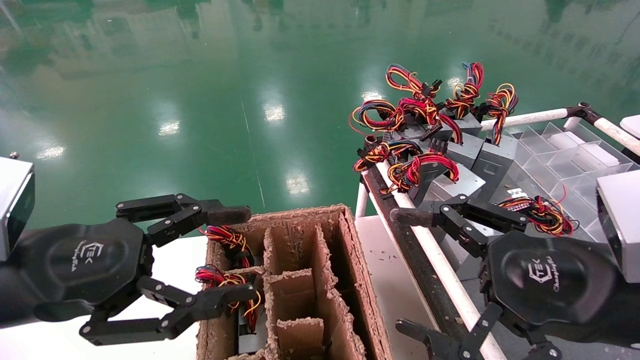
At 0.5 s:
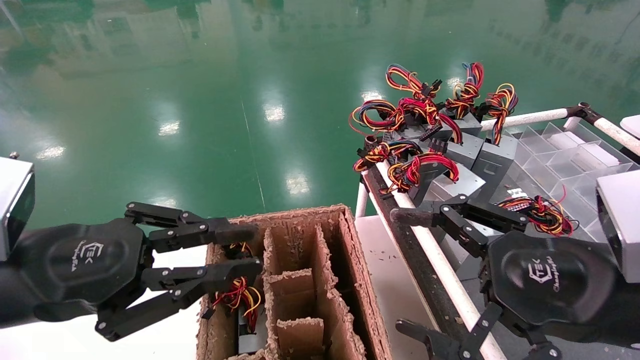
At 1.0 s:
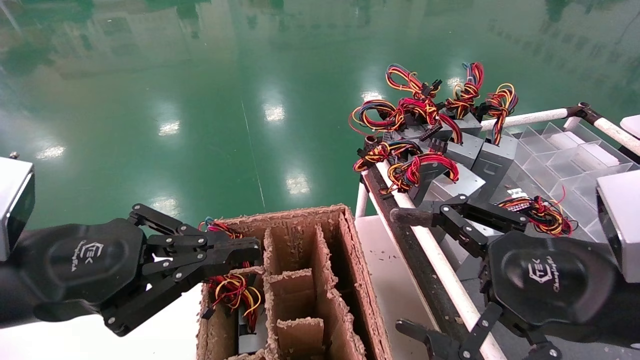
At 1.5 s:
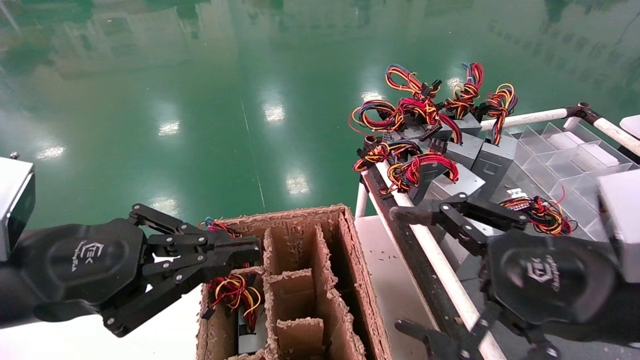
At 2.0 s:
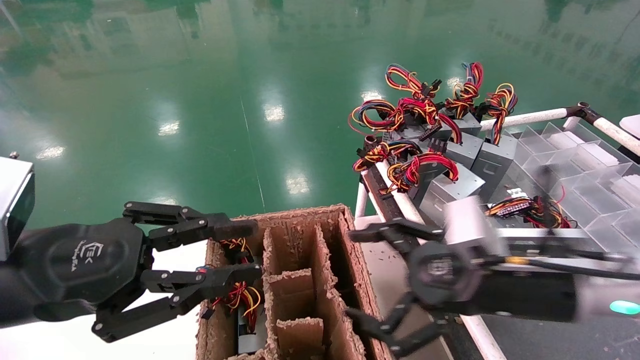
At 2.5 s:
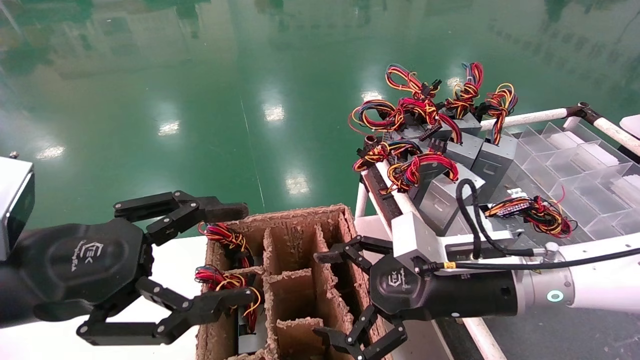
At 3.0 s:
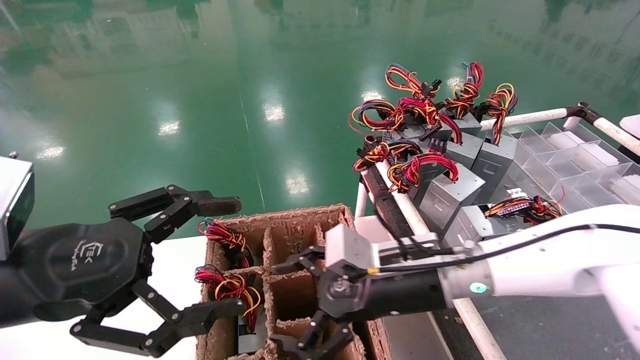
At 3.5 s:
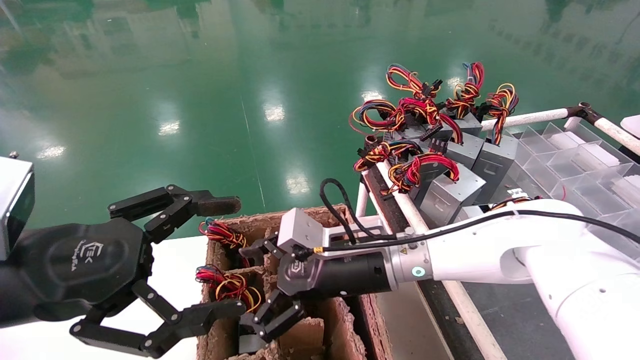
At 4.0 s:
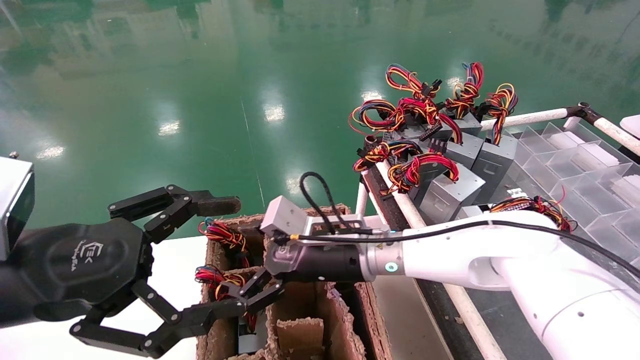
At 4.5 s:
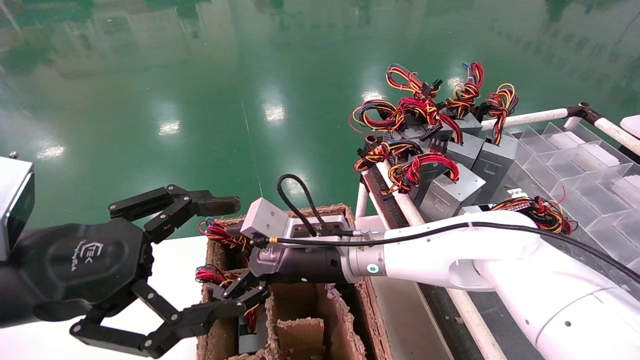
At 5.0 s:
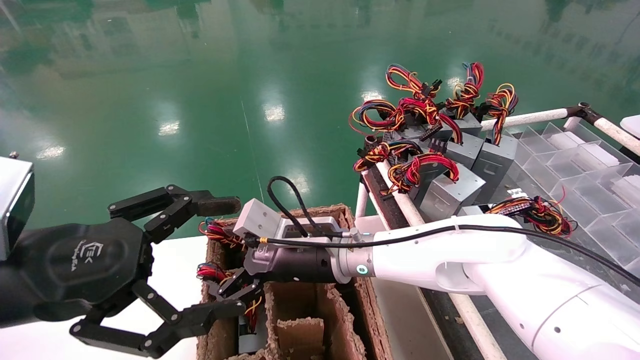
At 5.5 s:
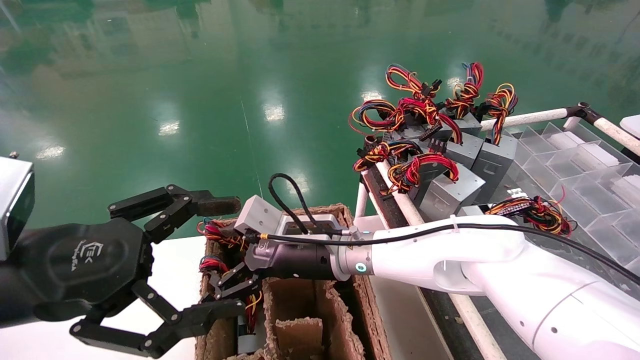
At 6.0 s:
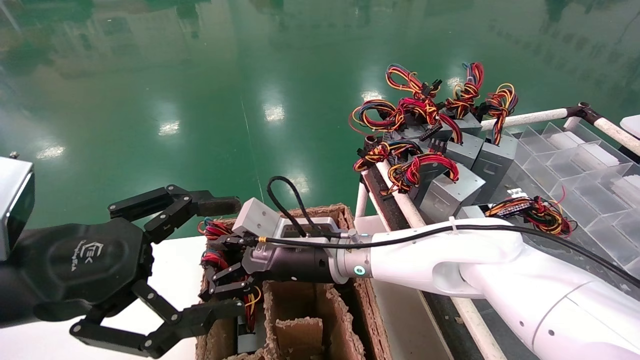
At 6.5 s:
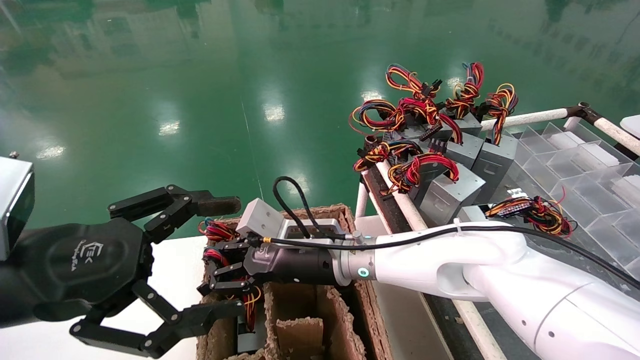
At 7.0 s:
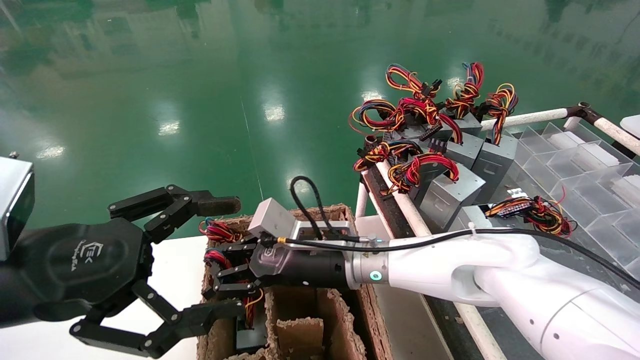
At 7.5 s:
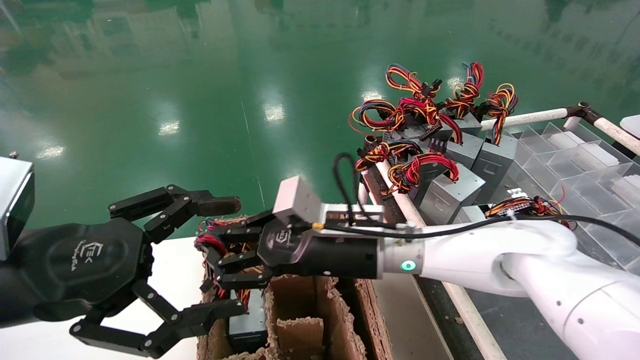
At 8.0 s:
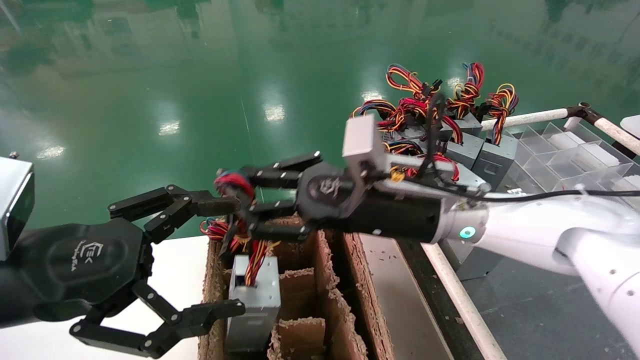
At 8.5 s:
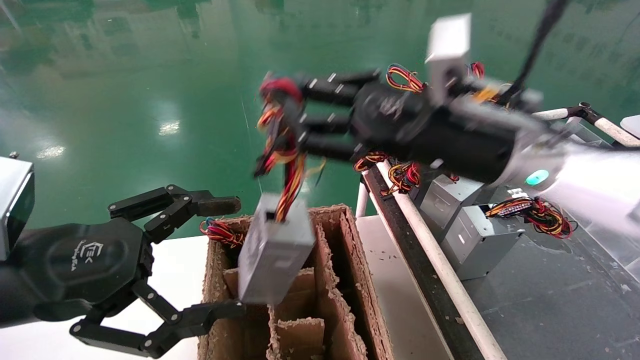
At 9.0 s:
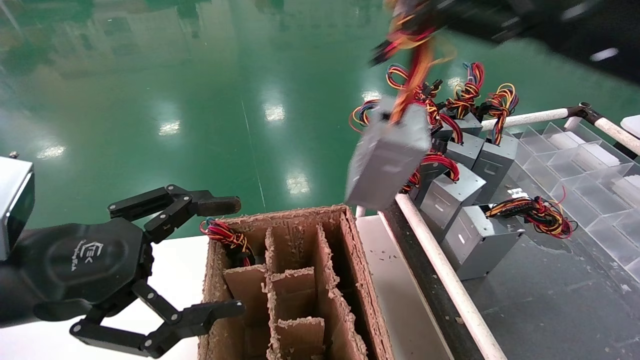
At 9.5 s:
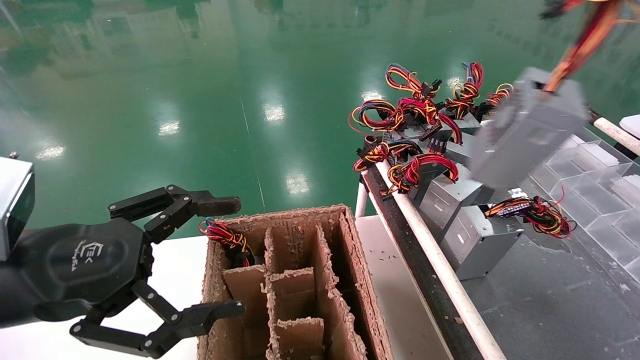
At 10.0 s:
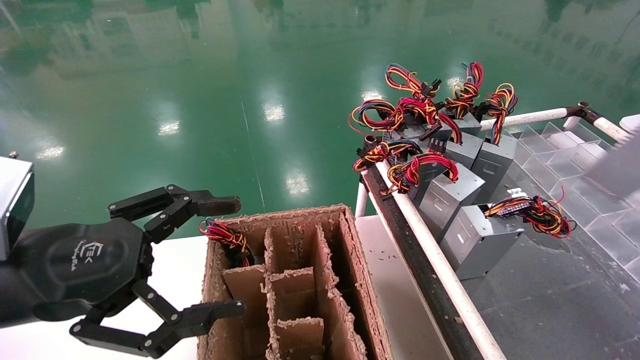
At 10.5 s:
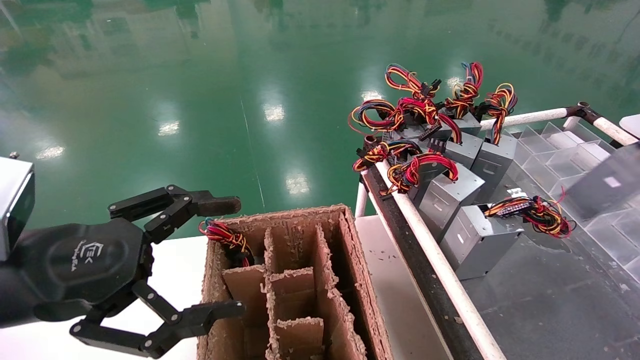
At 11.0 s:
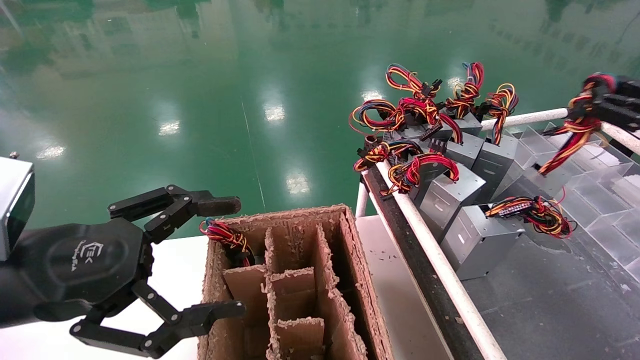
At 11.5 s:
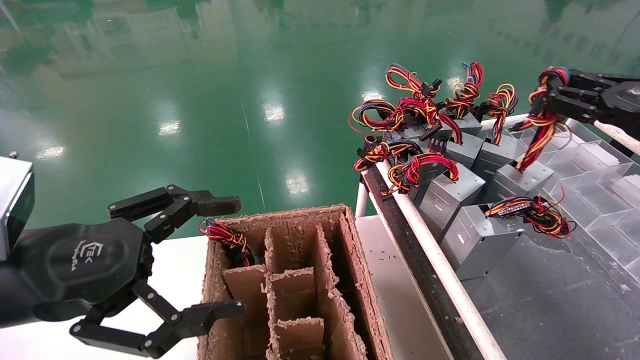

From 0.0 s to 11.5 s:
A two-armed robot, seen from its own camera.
Step, from 1.0 s to 6.5 s: Grab and lift the power supply from the large box.
From 0.0 s to 2.0 s: The right gripper heads forward, covering approximately 10 cm; the left gripper closes up.
From 2.0 s to 4.0 s: The left gripper opens its fingers. The right gripper is displaced to the left and forward by about 20 cm.
From 4.0 s to 6.0 s: The right gripper closes its fingers.
From 6.0 s to 7.5 s: The right gripper ends up some 5 cm from where it was.
From 7.5 s to 9.5 s: The right gripper shifts some 40 cm to the right and upward.
From 9.5 s to 11.5 s: The right gripper heads forward and downward, covering roughly 15 cm.

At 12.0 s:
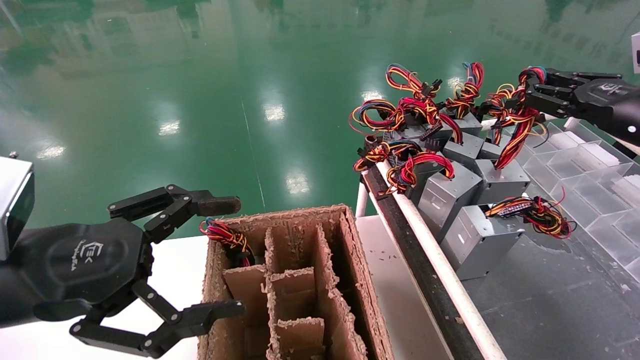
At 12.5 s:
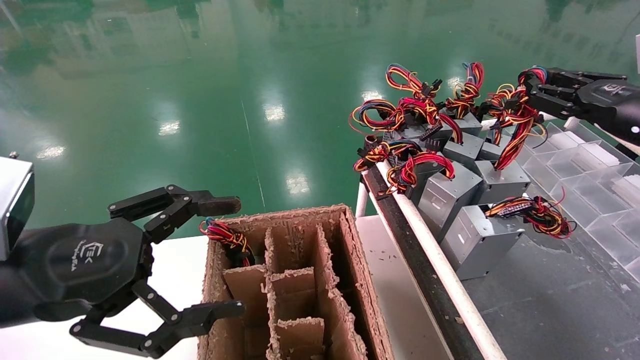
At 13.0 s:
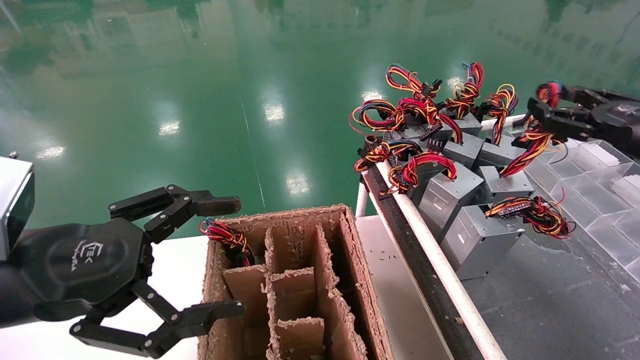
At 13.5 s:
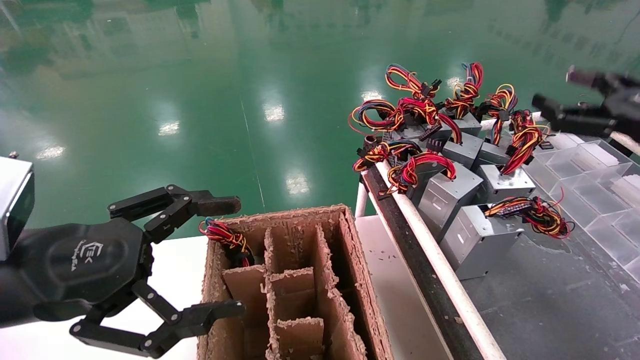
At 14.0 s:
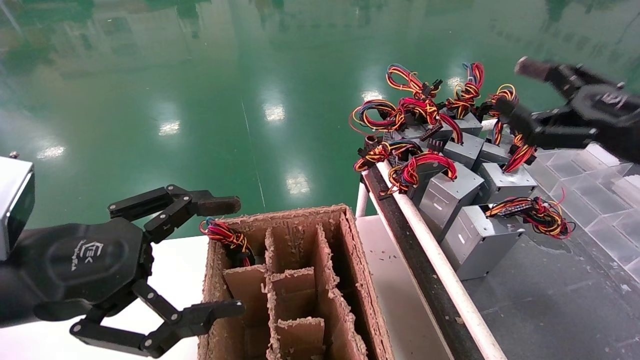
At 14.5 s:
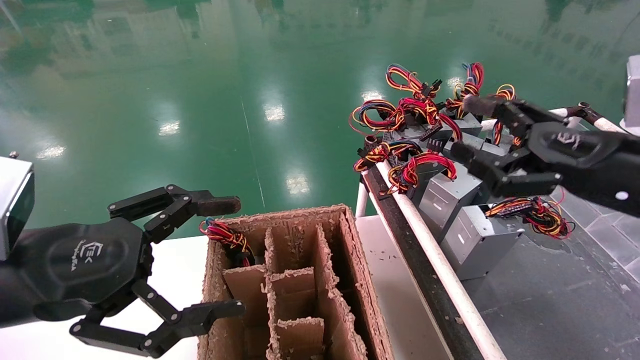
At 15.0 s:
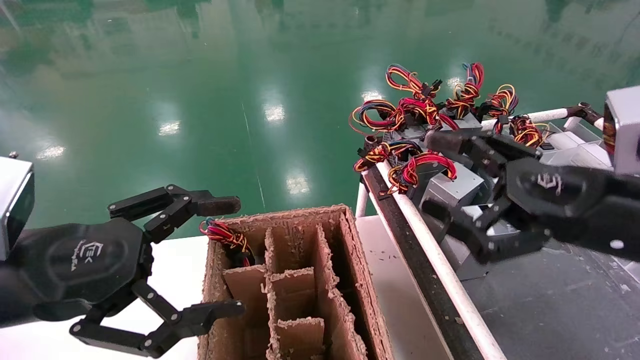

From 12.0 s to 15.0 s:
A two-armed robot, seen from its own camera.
From 12.0 s to 13.5 s: The right gripper opens up.
From 13.5 s to 15.0 s: The right gripper shifts roughly 15 cm to the left and backward.
